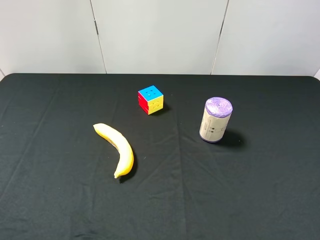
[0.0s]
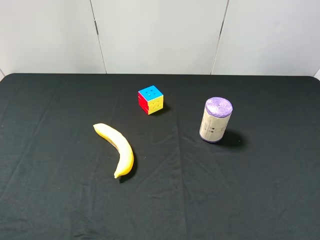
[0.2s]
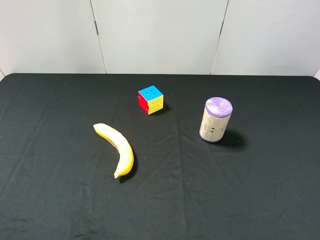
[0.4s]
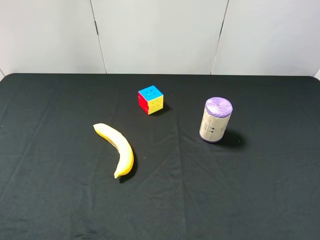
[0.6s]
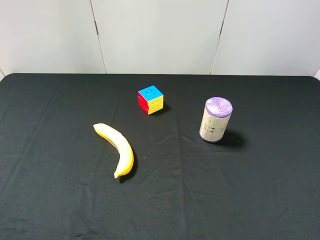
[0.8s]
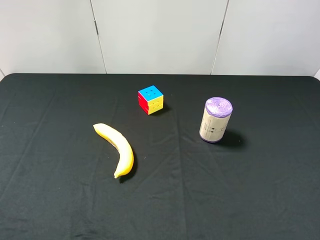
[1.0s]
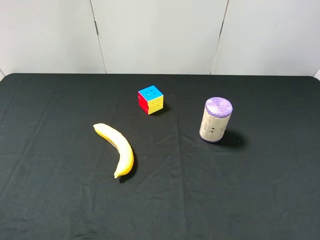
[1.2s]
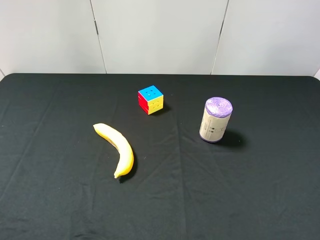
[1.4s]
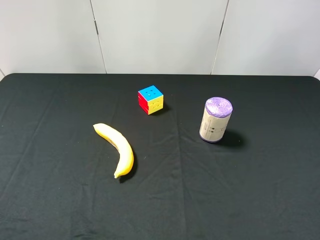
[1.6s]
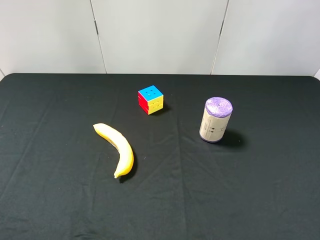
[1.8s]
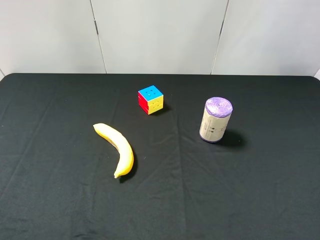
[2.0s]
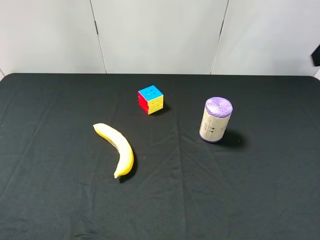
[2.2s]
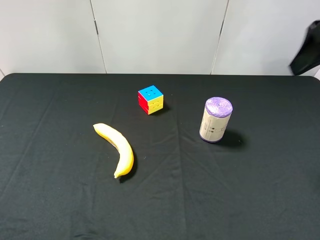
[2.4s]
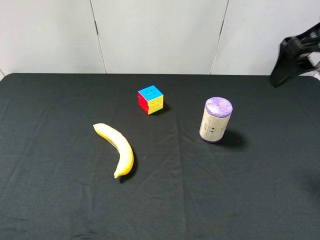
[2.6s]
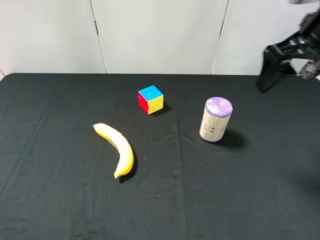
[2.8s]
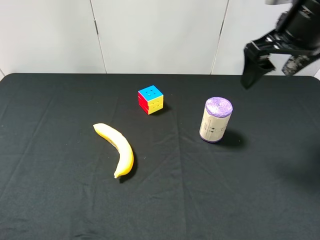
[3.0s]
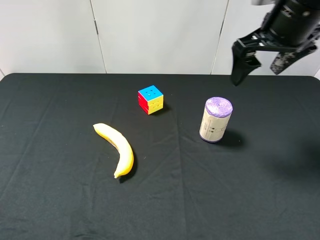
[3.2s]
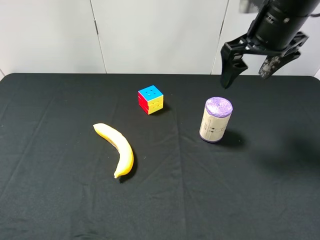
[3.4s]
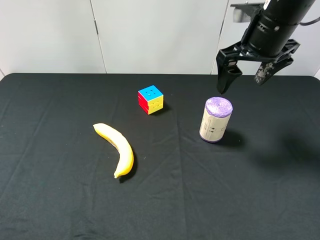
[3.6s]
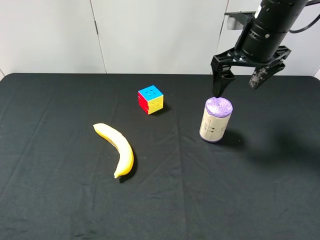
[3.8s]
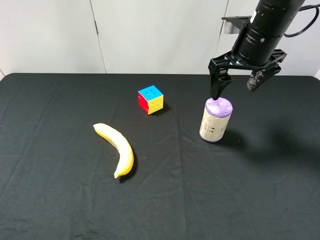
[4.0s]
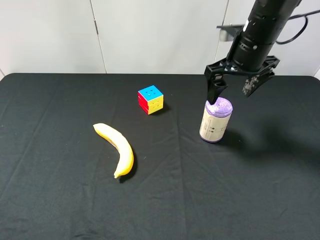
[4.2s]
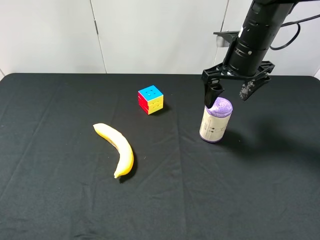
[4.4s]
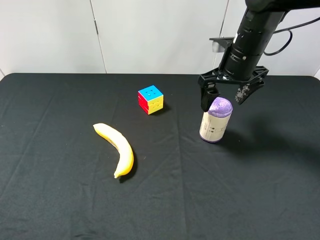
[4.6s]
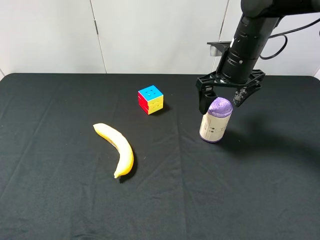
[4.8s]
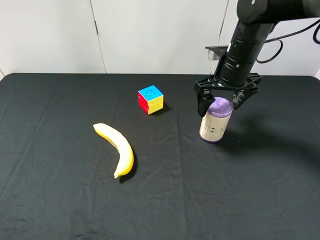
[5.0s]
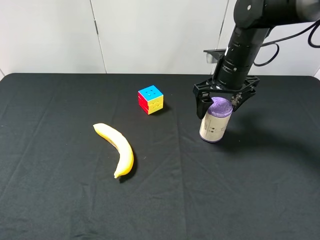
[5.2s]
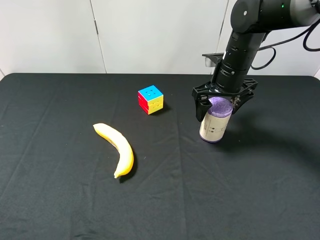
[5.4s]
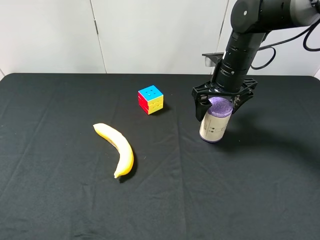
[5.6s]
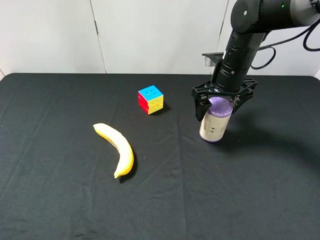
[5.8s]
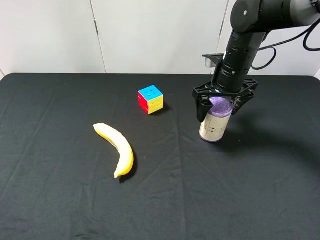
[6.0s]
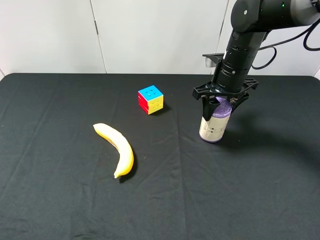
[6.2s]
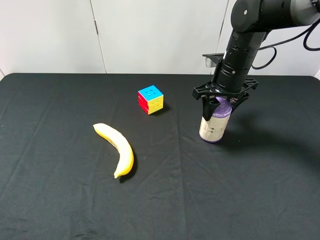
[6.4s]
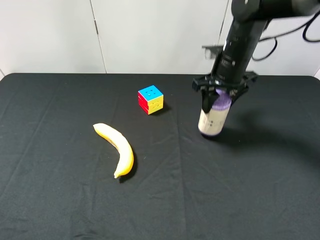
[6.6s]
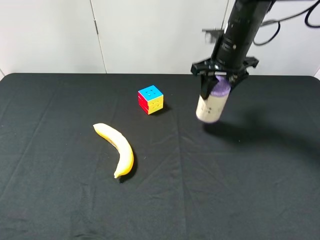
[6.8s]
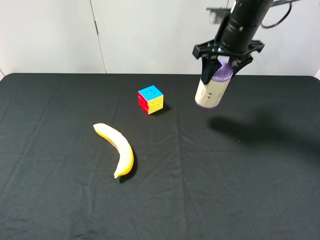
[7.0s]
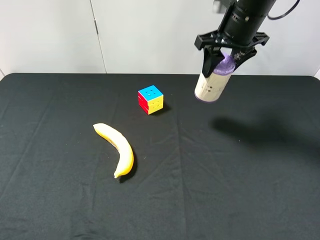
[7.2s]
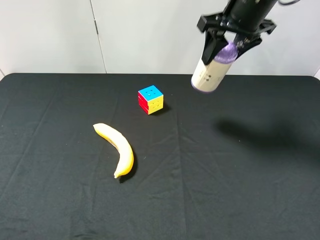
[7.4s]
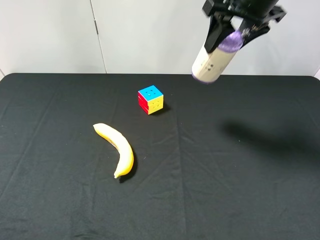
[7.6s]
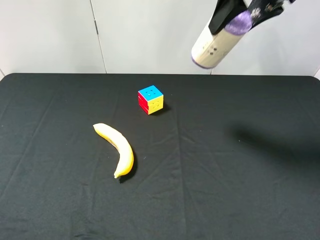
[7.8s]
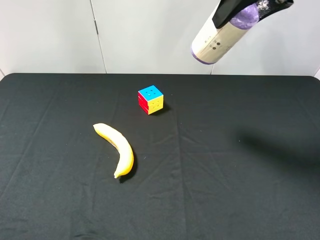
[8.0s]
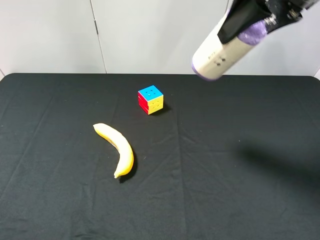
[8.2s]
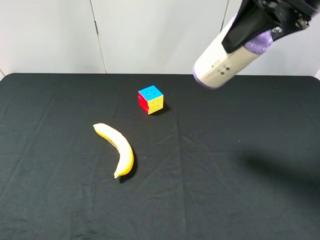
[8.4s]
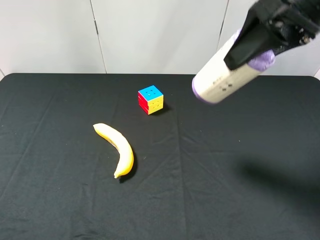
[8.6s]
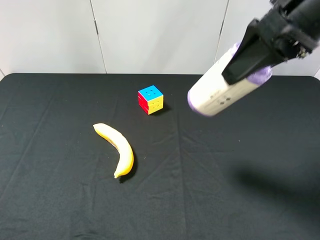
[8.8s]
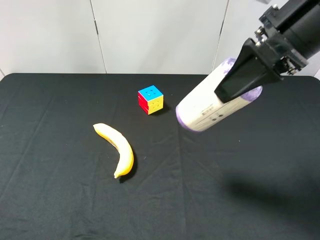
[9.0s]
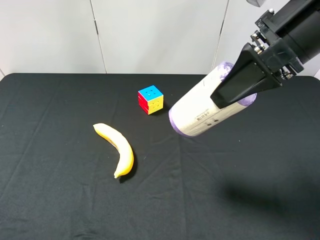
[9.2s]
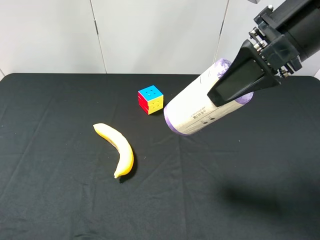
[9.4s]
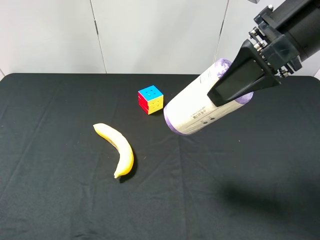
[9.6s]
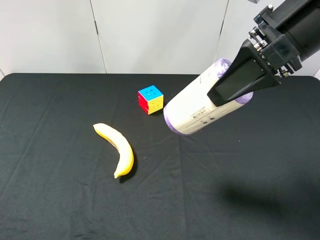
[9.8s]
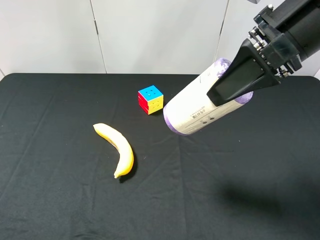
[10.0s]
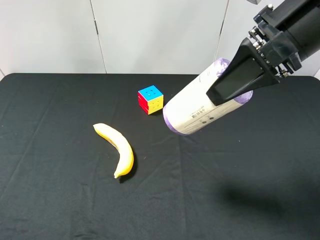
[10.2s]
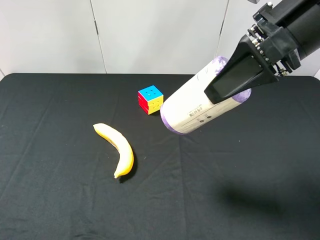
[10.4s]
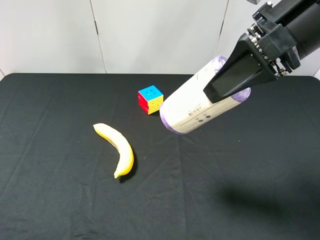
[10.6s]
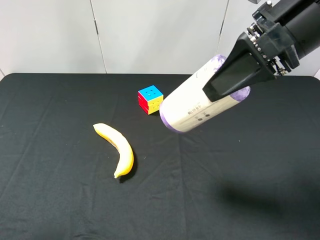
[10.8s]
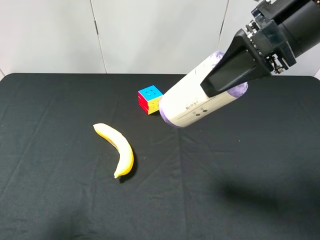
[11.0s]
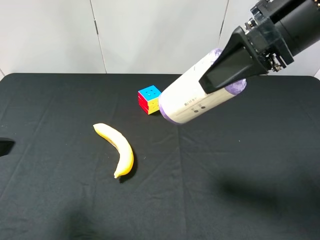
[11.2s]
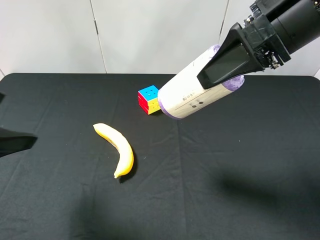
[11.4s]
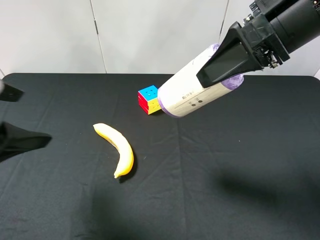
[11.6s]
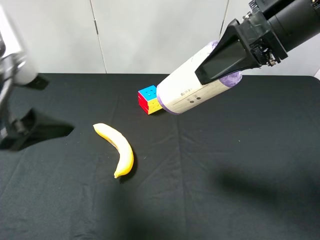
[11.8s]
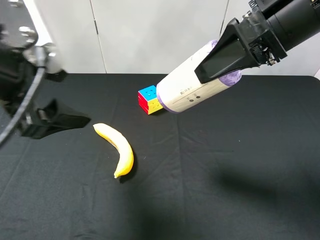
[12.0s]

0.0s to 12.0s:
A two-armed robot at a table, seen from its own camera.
Task of the whole recording: use the right gripper to pick up the item and transfer it from the right gripper to the left gripper.
Step, 0.0s to 6.0s: Use the right gripper to grab the purple garbage bag on the right side of the table.
1.6s to 3.0s: The right gripper travels forward and to the left by about 20 cm.
3.0s to 4.4s: The right gripper shifts roughly 10 cm downward and forward.
4.4s to 6.0s: The right gripper is displaced downward by approximately 5 cm, and closes.
6.0s to 7.6s: The right gripper heads upward, covering some 15 cm, and closes up.
7.6s to 9.0s: The right gripper is displaced backward by roughly 10 cm.
9.0s to 10.4s: There are only small adjustments of the grippers.
10.4s to 12.0s: The left gripper moves forward and to the right, about 20 cm.

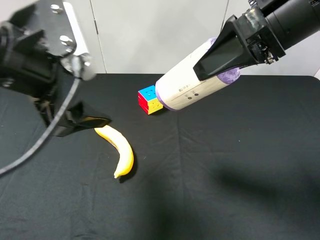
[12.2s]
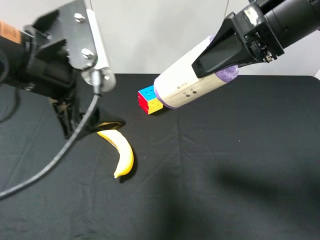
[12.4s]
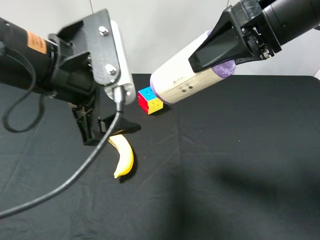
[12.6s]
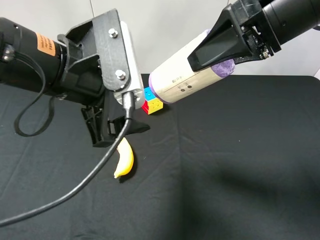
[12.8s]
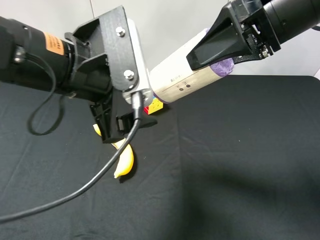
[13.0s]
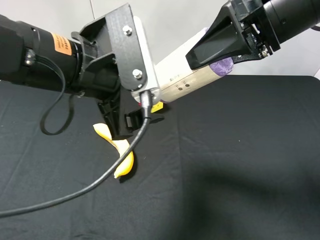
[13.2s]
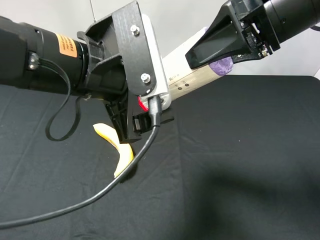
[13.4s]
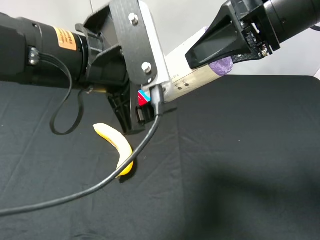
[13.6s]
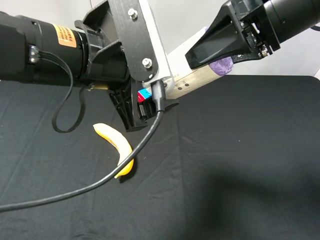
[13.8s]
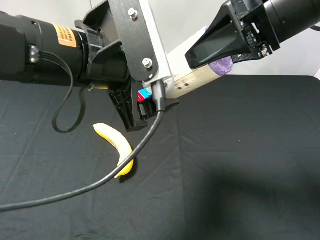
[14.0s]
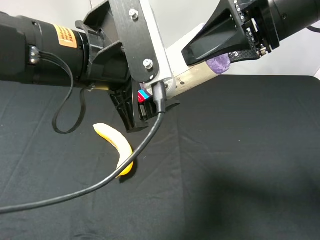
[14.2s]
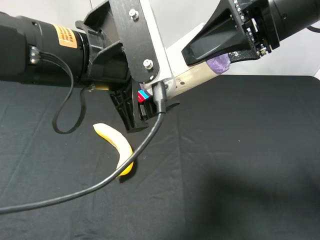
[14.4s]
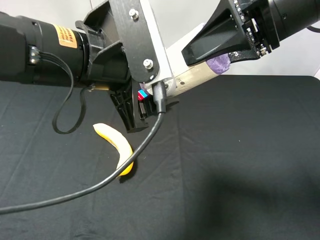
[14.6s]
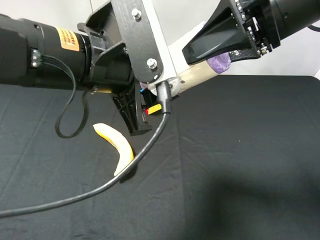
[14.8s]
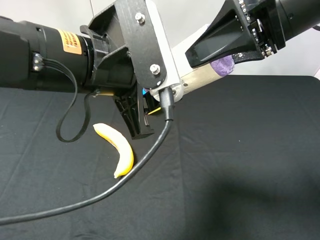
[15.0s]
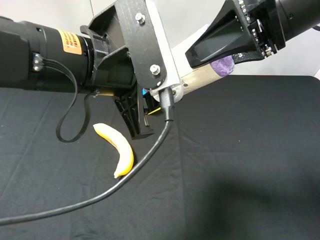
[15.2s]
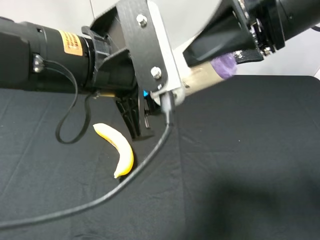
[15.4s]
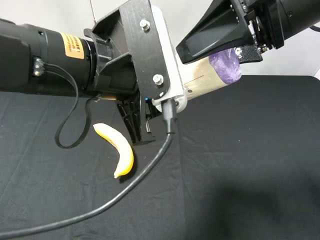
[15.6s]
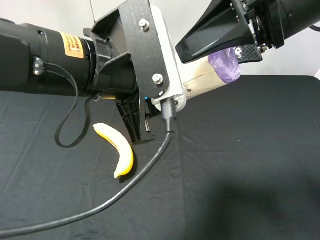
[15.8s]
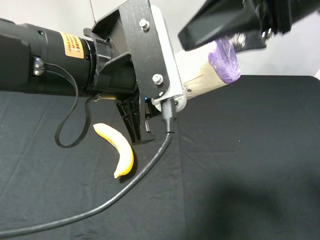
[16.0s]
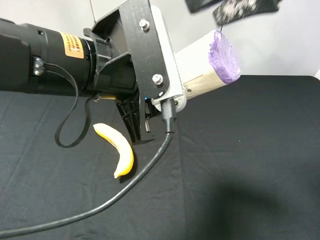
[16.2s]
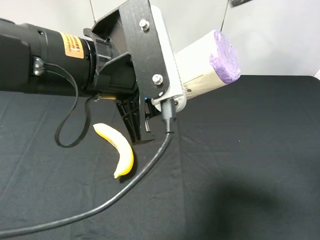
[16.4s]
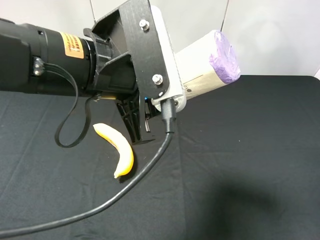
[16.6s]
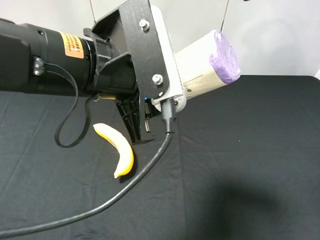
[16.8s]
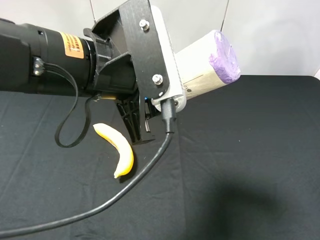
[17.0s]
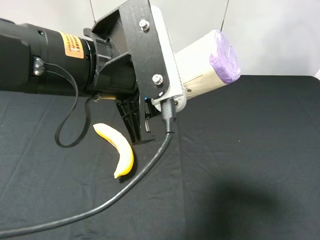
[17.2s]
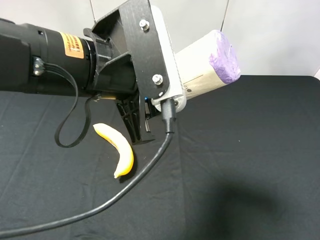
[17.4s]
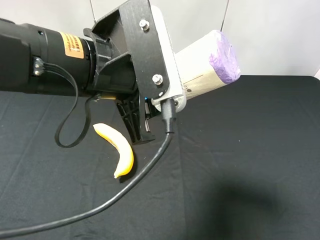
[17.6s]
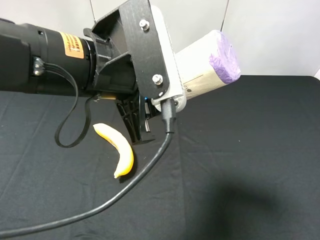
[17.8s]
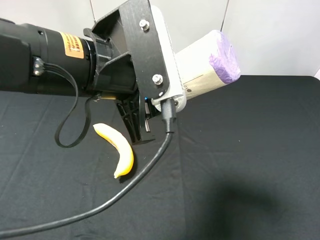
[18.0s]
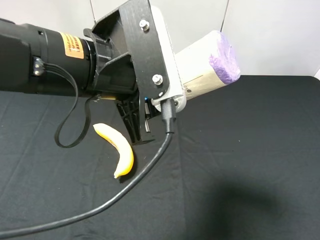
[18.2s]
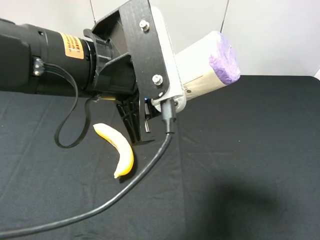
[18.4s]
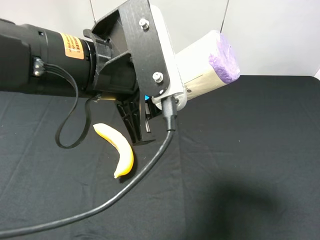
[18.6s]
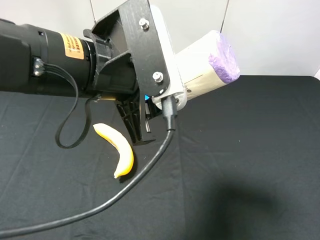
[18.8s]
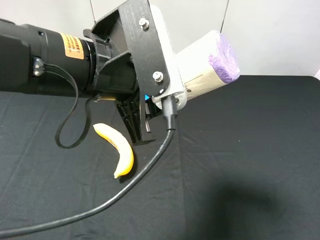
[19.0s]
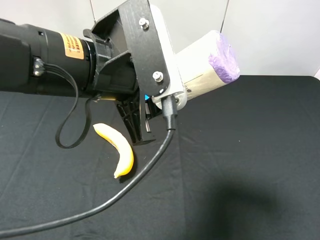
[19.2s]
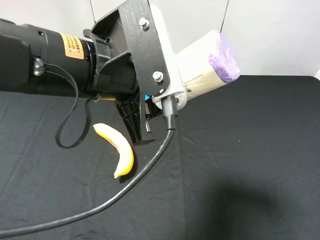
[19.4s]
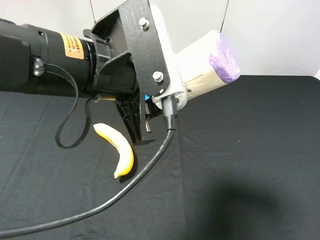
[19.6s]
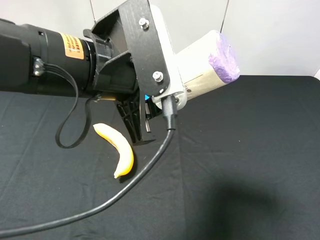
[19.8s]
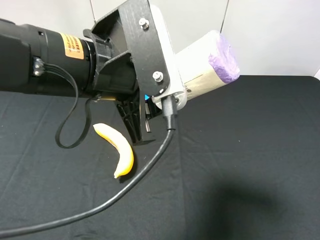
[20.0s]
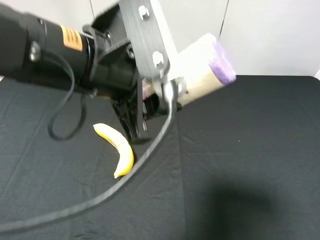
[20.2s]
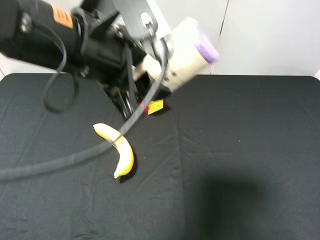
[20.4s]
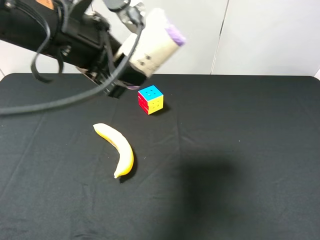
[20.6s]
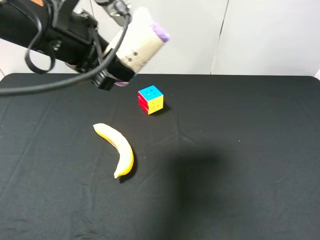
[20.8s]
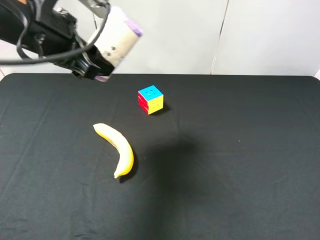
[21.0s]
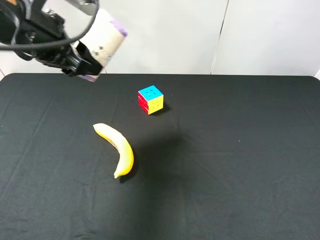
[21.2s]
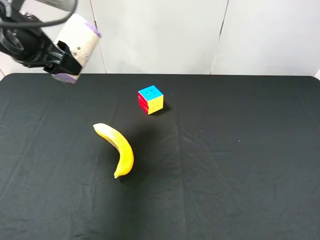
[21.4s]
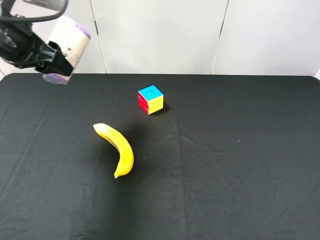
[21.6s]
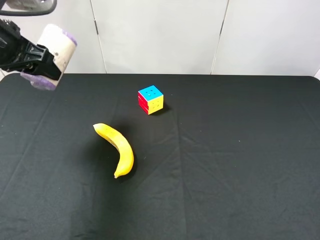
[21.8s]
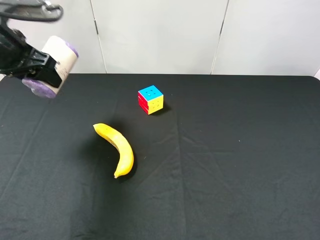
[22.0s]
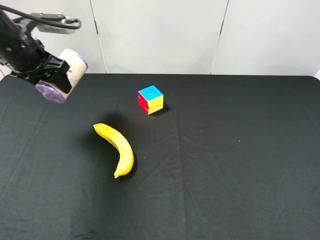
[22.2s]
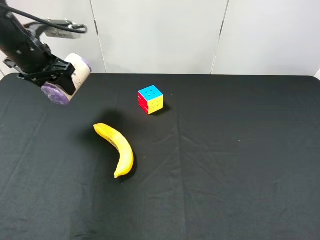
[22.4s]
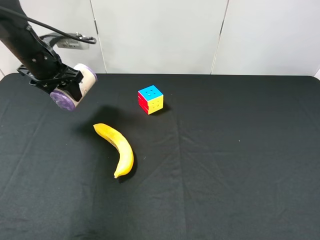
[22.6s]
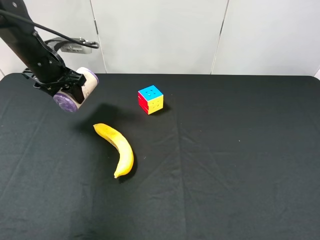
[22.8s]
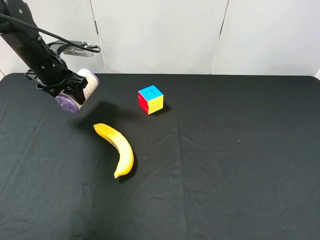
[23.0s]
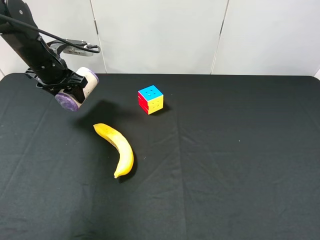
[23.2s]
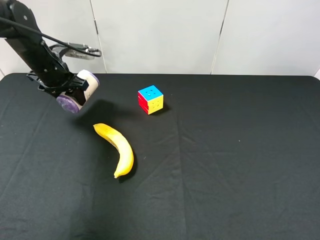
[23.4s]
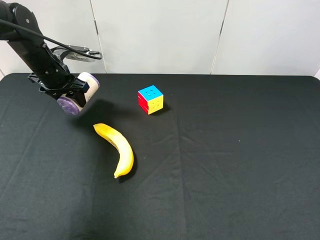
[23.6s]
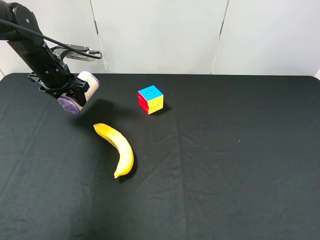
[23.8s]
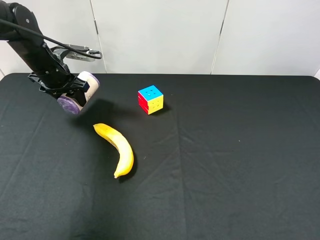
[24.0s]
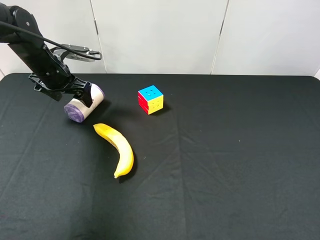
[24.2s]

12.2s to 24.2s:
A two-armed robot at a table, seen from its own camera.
Task of the whole recording: use the right gripper to pick up the item and transfer it from the right gripper to the left gripper.
Step, 12.2s to 15.6s: Pass the purple garbage bag to the left gripper.
12.2s to 13.8s: The left gripper moves to the right, approximately 5 cm.
13.8s to 15.2s: The left gripper closes up.
15.2s to 16.6s: The right gripper moves upward, approximately 10 cm, and opens its fingers.
19.8s to 21.2s: The left gripper shifts about 15 cm to the left and forward.
21.2s to 22.6s: The left gripper travels forward, downward and to the left by roughly 15 cm.
22.6s to 24.2s: The left gripper opens.
